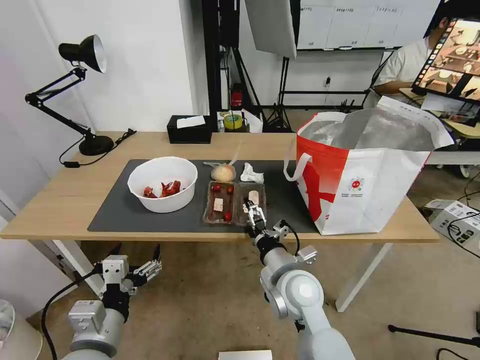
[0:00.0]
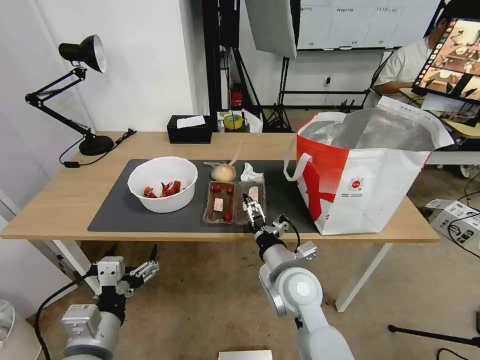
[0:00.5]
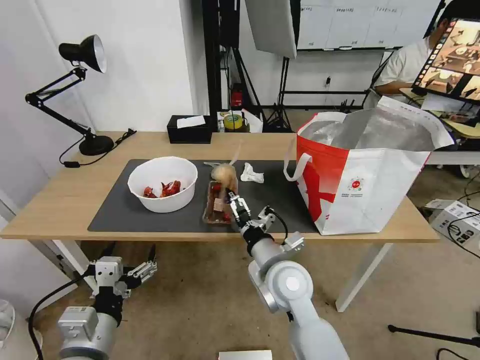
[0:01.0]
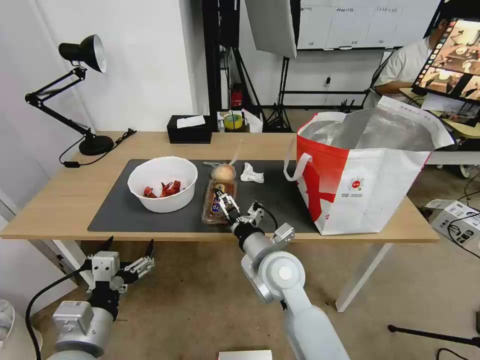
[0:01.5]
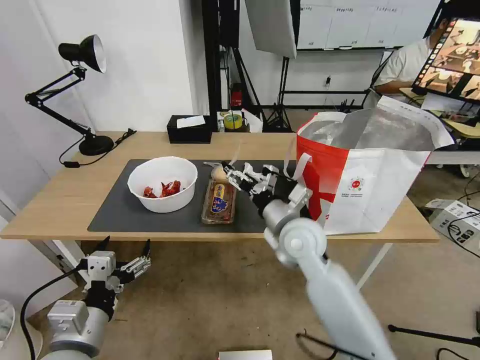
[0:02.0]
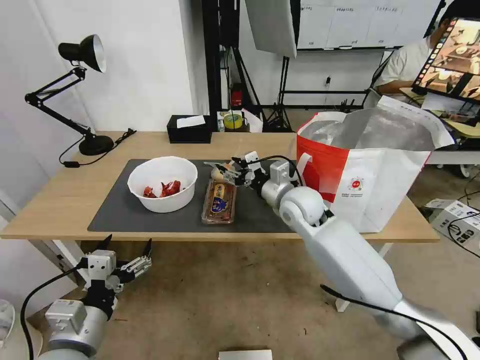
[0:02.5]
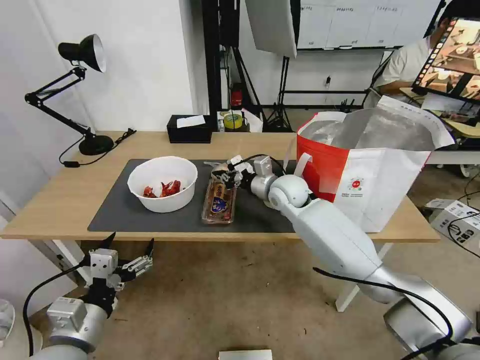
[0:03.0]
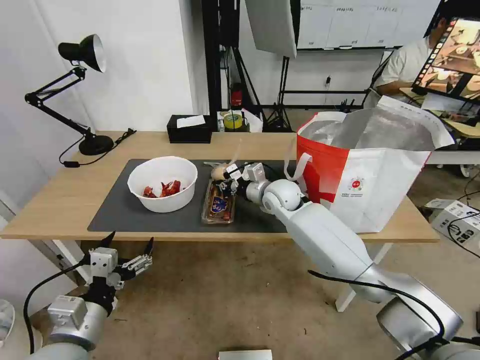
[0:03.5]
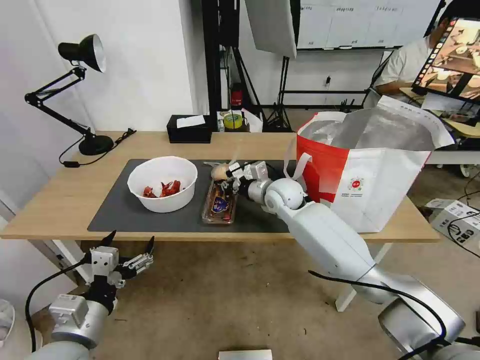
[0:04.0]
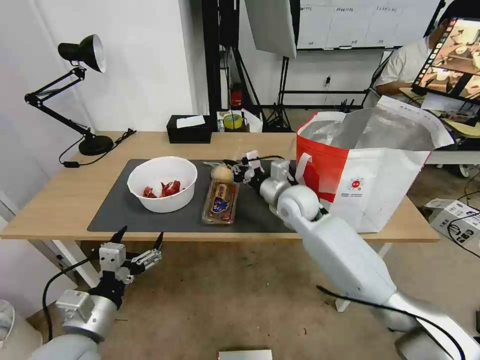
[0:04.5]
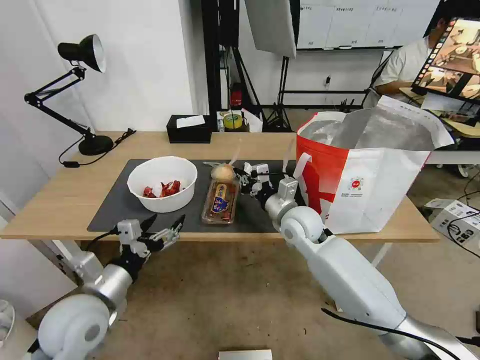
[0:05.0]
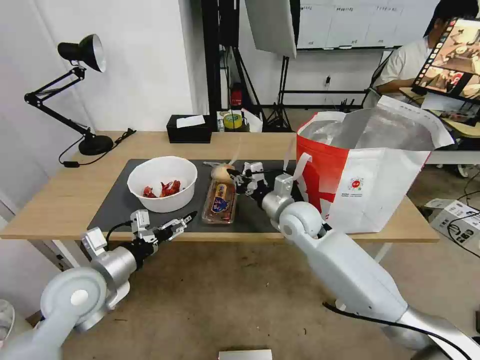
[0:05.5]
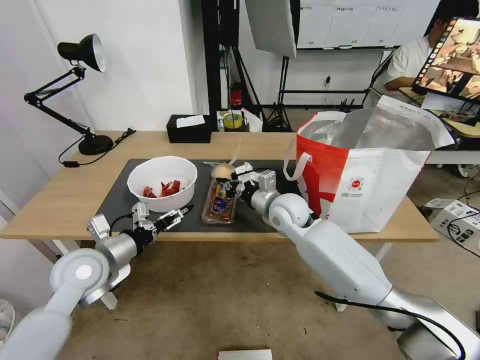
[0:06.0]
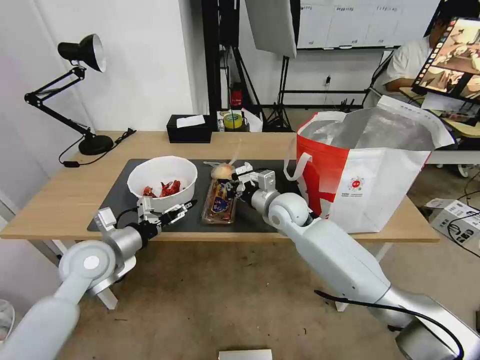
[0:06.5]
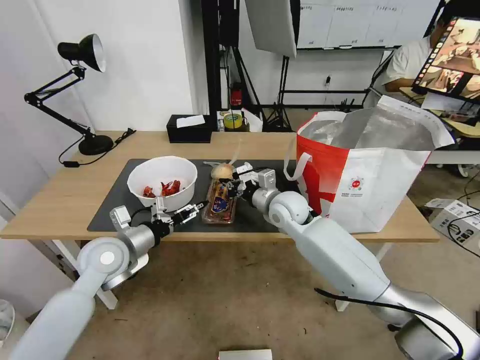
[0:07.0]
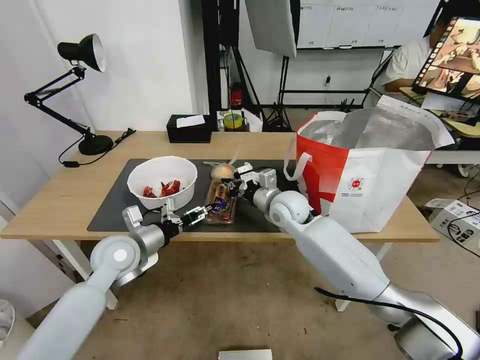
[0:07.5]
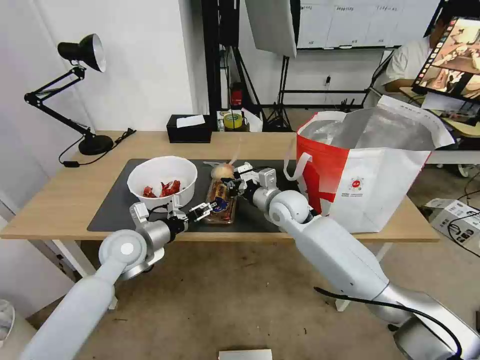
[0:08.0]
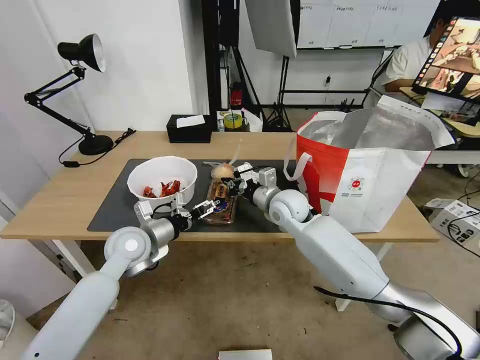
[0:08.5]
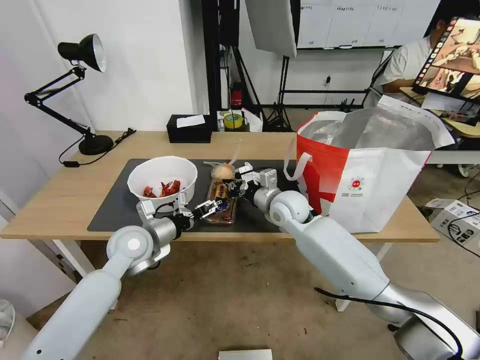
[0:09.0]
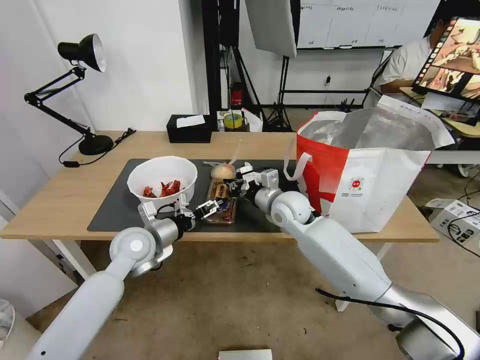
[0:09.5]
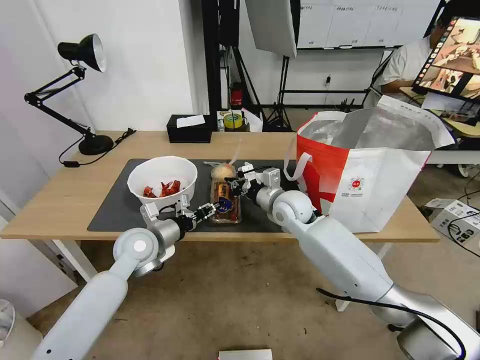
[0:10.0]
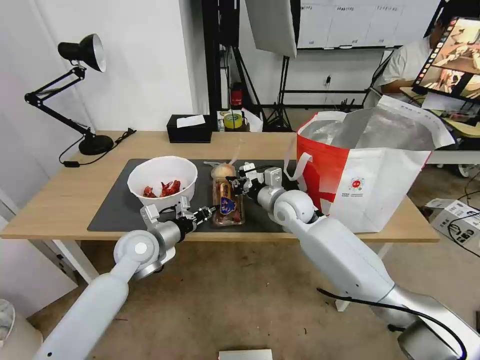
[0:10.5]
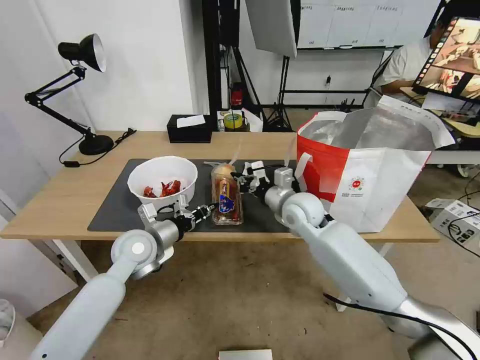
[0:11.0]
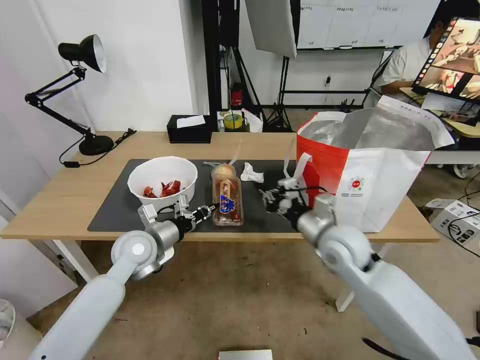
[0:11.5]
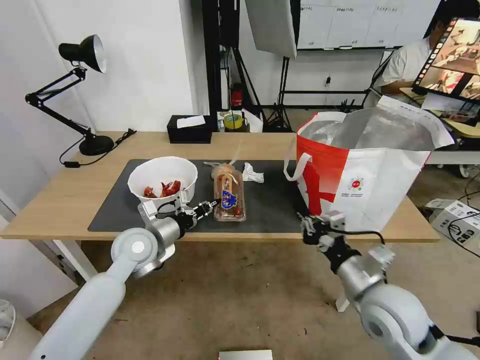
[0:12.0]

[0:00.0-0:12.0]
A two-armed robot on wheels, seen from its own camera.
Task of the whole recording: Pick up the trash from the table and place it into the takeout bag.
0:00.0 to 0:02.0: The right gripper is displaced forward and upward by approximately 10 cm.
0:02.0 to 0:04.0: The right gripper travels forward by roughly 15 cm, and closes up.
0:04.0 to 0:06.0: The right gripper shifts about 5 cm backward. Meanwhile the left gripper shifts roughly 15 cm forward.
0:06.0 to 0:08.0: The left gripper shifts approximately 10 cm forward and to the right.
0:08.0 to 0:10.0: The left gripper closes.
0:10.0 to 0:12.0: The left gripper closes its fingers, while the right gripper travels backward and to the right by some 25 cm.

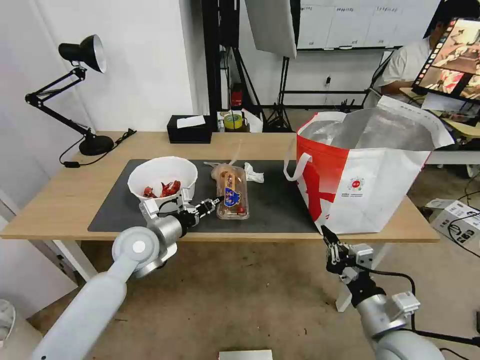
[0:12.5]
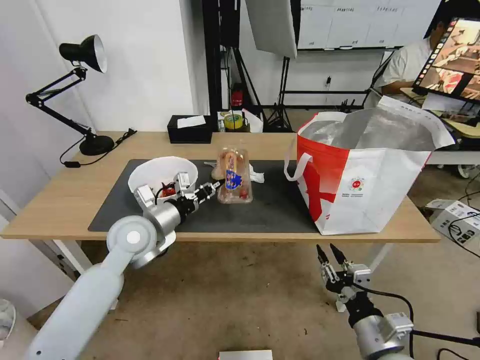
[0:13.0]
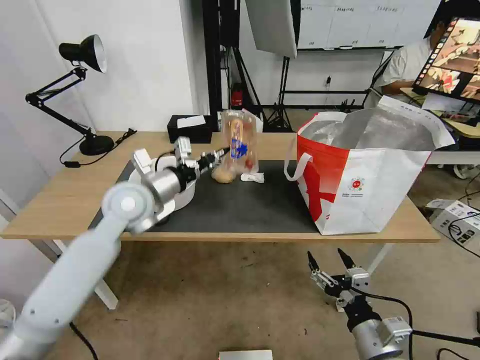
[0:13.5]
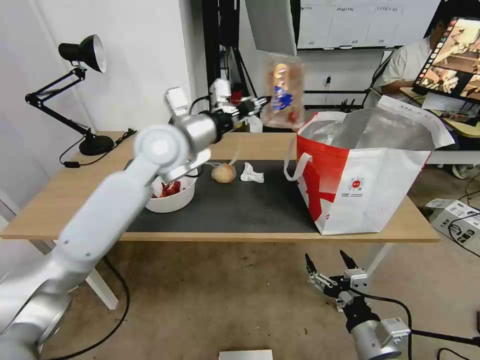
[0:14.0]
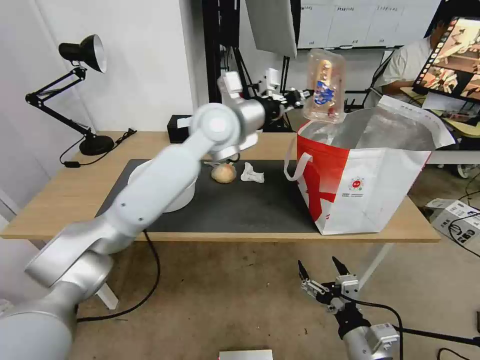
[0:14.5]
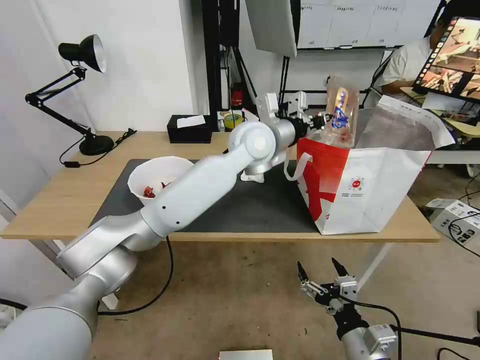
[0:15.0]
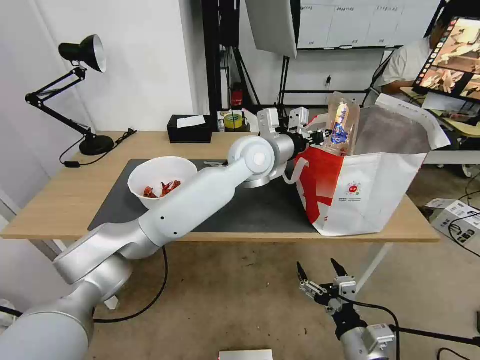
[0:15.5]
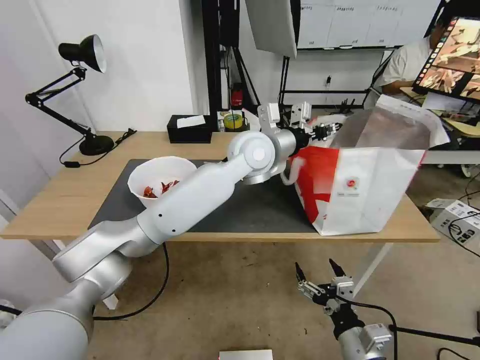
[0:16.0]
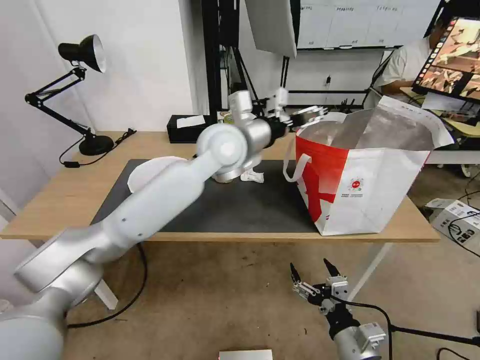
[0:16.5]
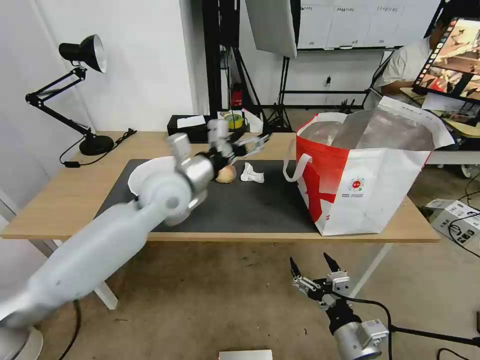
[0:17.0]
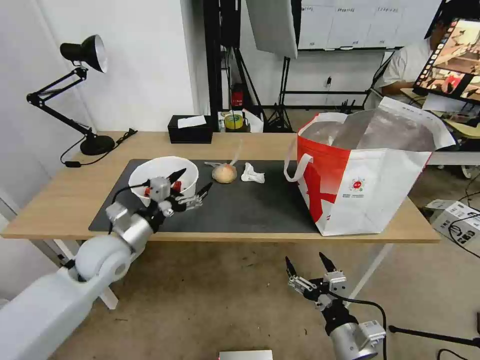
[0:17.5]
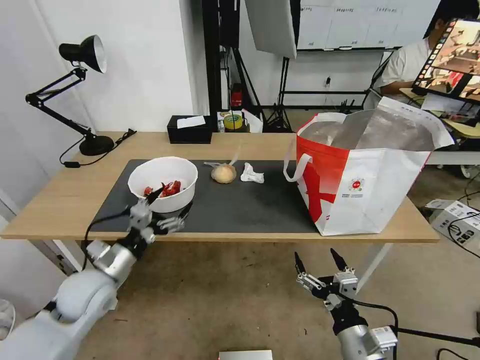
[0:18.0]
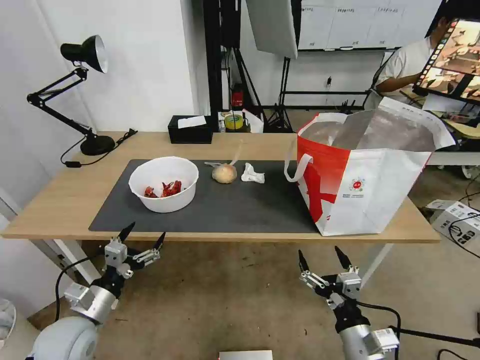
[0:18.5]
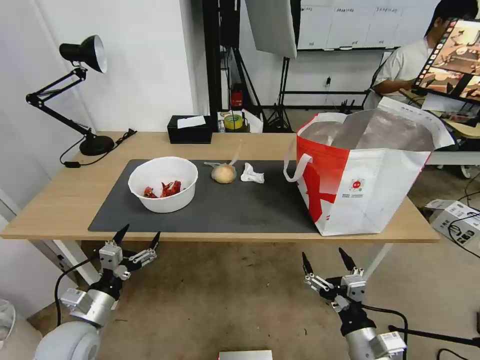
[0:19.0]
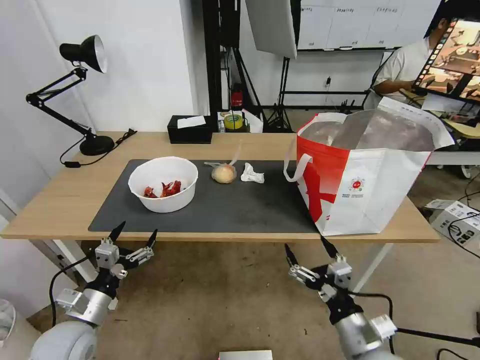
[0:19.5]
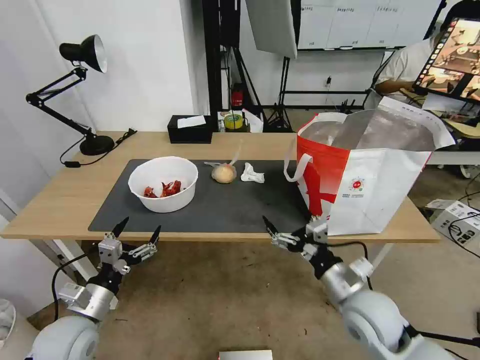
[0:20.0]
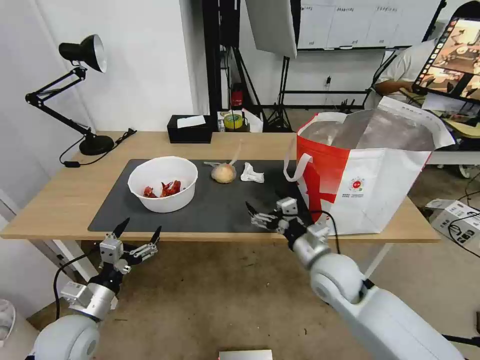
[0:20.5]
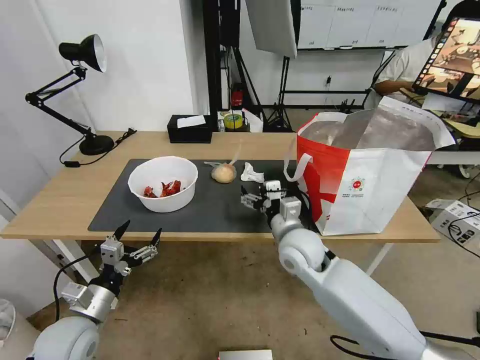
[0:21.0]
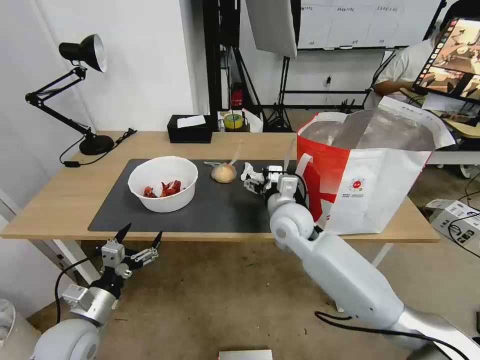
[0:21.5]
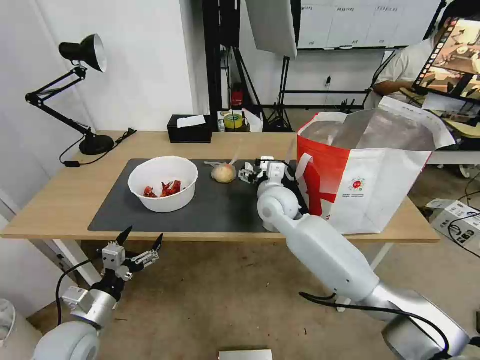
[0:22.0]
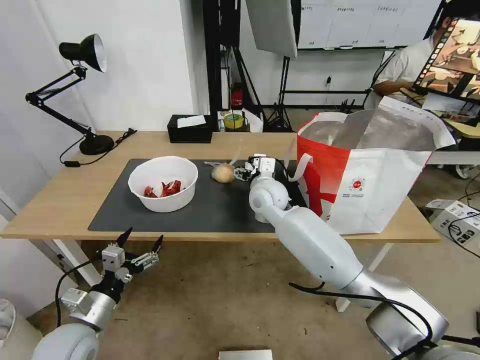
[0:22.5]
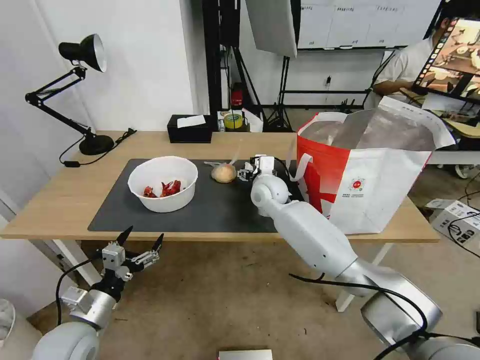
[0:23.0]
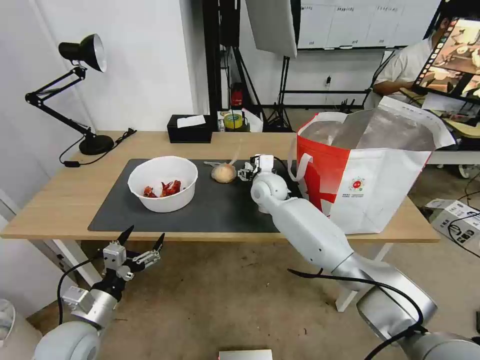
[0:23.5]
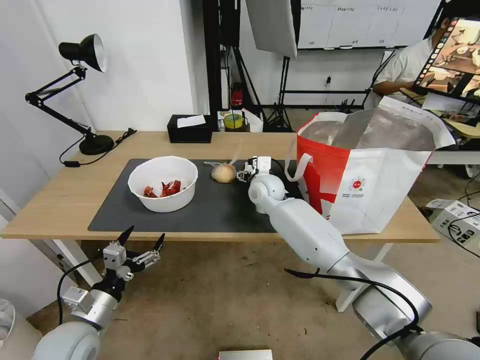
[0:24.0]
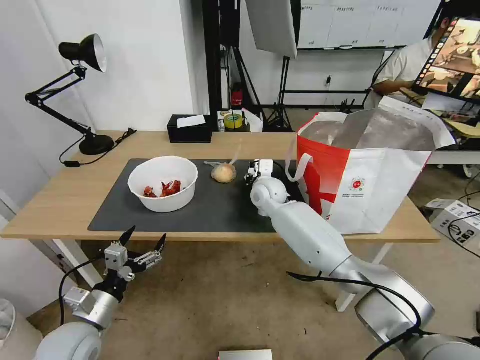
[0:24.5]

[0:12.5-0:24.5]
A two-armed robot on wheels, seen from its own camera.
Task of the whole recording: Pick up the trash from the table and place it into the takeout bag.
0:12.5 to 0:14.5: The right gripper changes place by approximately 5 cm, and opens. The left gripper heads upward, to the right and forward, covering about 30 cm.
0:14.5 to 0:16.5: The left gripper opens its fingers.
0:16.5 to 0:18.5: The left gripper heads to the left, downward and backward, covering some 50 cm.
0:18.5 to 0:20.5: The right gripper heads forward, covering roughly 20 cm.
0:20.5 to 0:22.5: The right gripper shifts roughly 20 cm forward and to the left.
0:22.5 to 0:24.5: The right gripper changes place by some 5 cm, and closes its fingers.

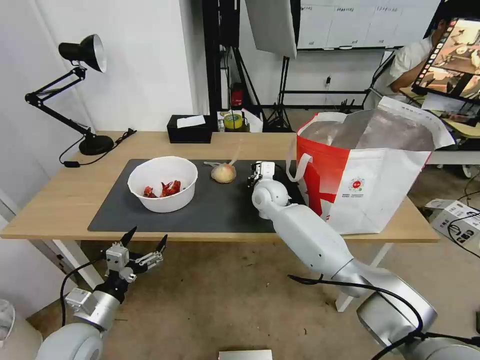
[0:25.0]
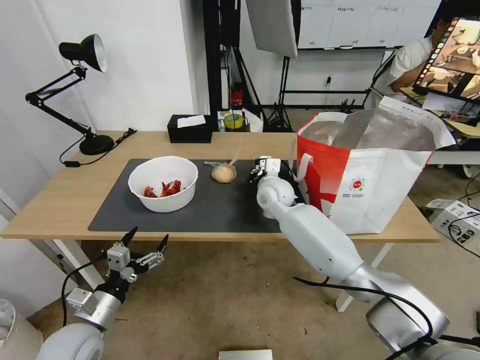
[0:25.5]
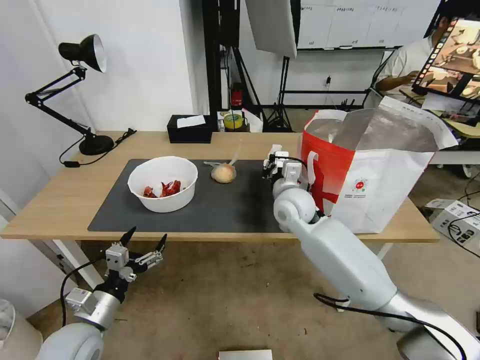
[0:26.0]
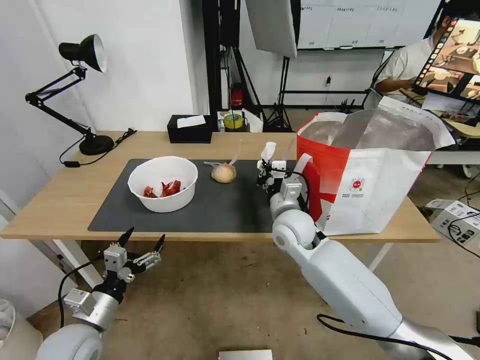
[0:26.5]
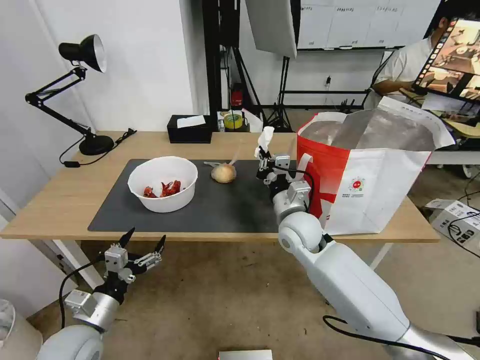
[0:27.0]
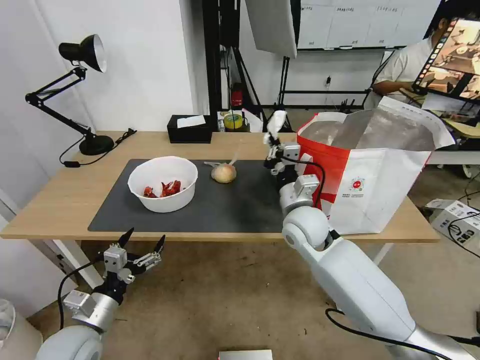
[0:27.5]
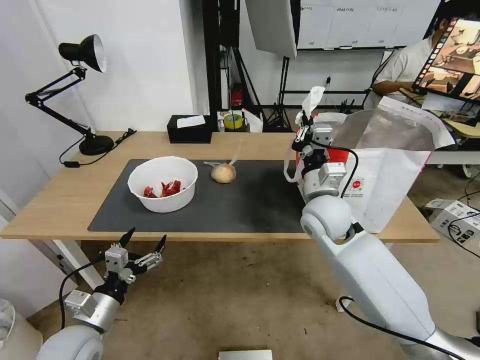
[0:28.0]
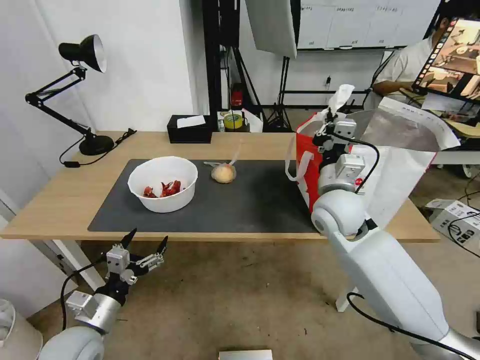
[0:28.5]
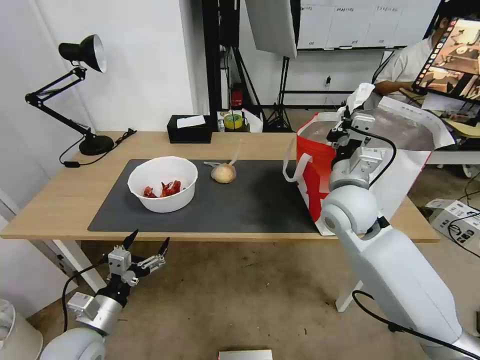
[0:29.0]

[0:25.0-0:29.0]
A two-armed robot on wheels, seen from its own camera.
Task of the whole recording: Pick up the trash from the table and place it into the takeout bag.
0:25.0 to 0:27.0: The right gripper heads backward and to the right, covering some 15 cm.
0:27.0 to 0:29.0: The right gripper shifts approximately 15 cm upward and to the right.
